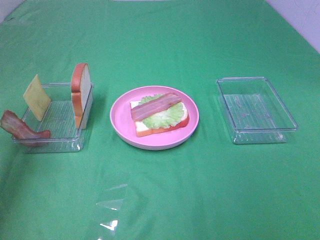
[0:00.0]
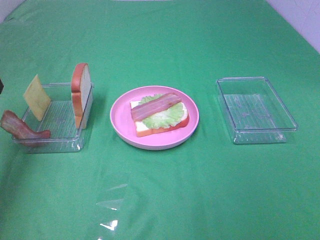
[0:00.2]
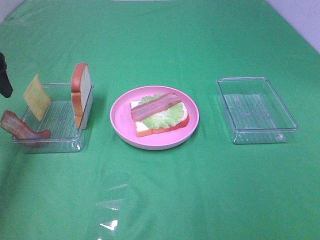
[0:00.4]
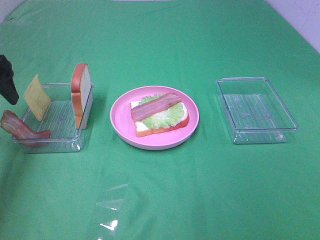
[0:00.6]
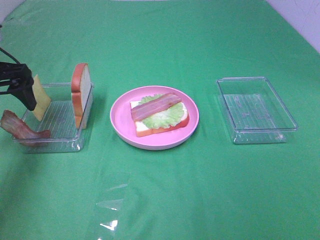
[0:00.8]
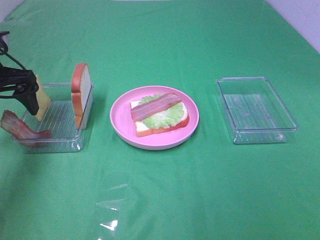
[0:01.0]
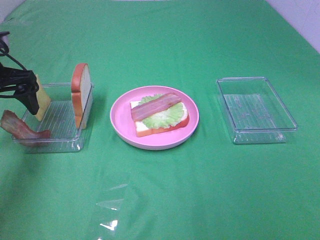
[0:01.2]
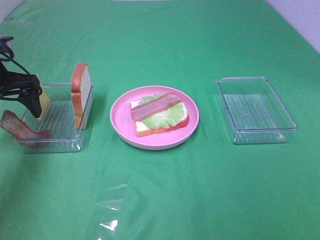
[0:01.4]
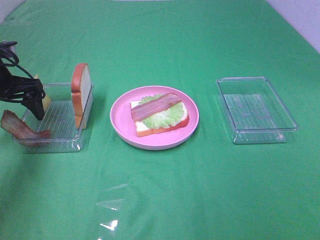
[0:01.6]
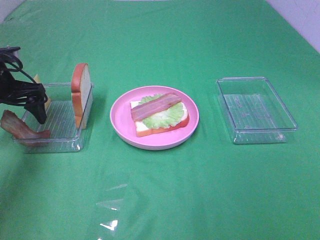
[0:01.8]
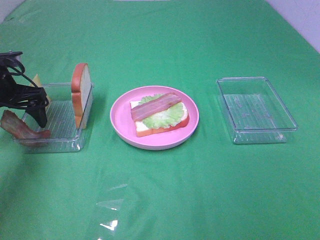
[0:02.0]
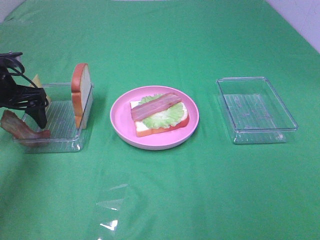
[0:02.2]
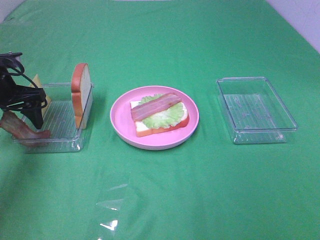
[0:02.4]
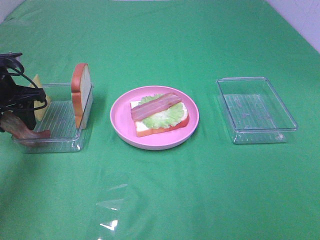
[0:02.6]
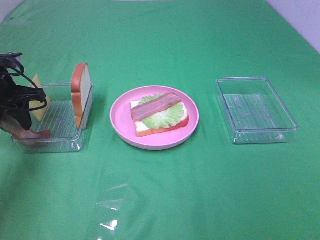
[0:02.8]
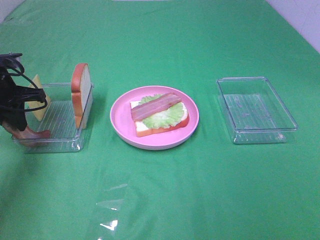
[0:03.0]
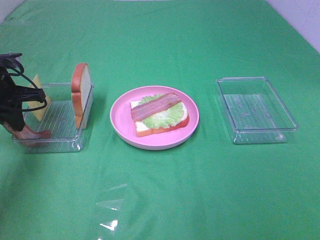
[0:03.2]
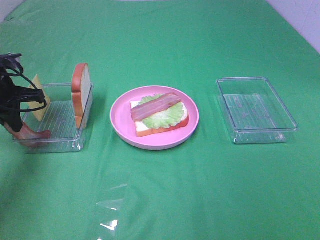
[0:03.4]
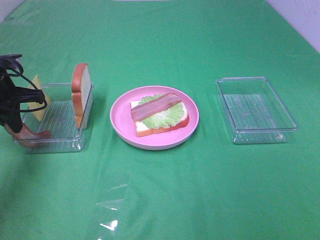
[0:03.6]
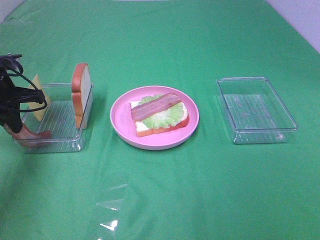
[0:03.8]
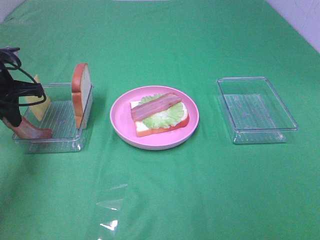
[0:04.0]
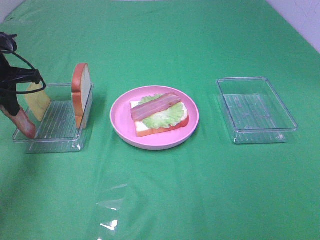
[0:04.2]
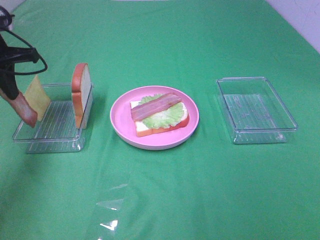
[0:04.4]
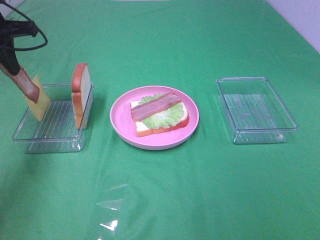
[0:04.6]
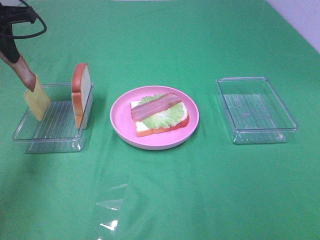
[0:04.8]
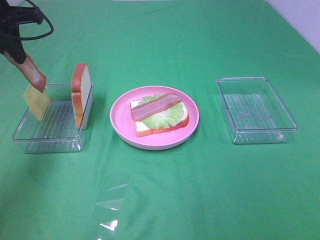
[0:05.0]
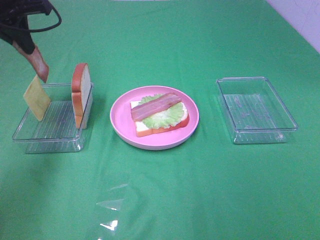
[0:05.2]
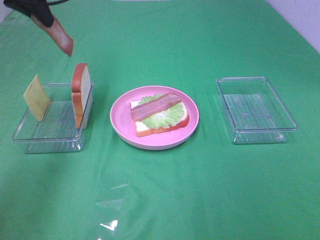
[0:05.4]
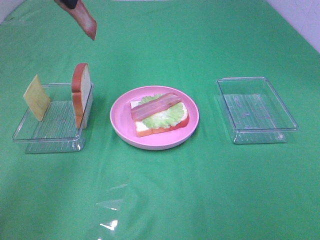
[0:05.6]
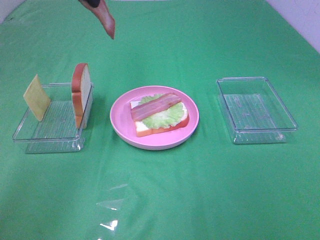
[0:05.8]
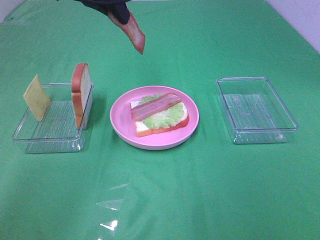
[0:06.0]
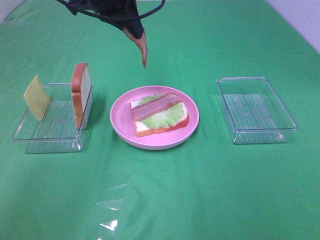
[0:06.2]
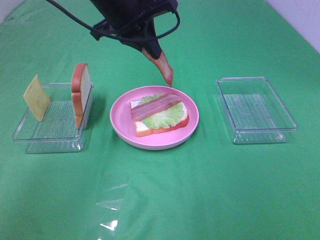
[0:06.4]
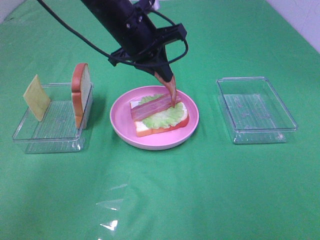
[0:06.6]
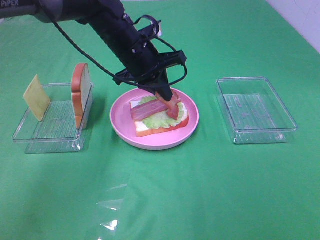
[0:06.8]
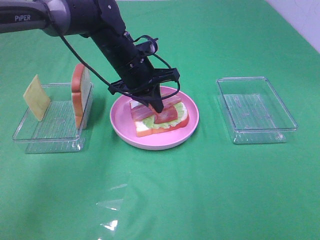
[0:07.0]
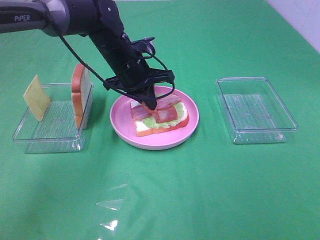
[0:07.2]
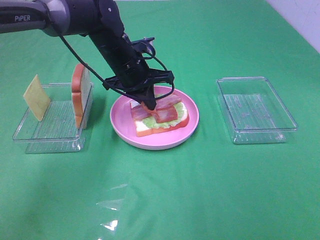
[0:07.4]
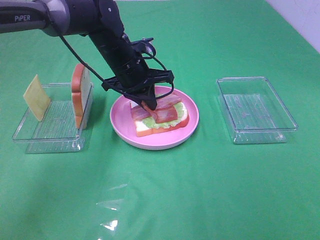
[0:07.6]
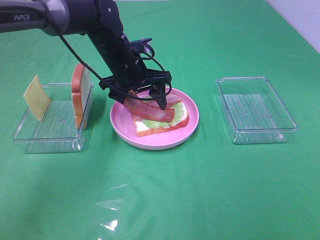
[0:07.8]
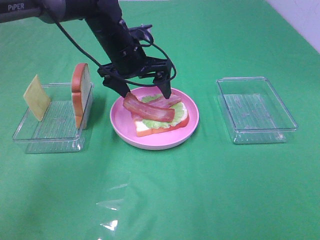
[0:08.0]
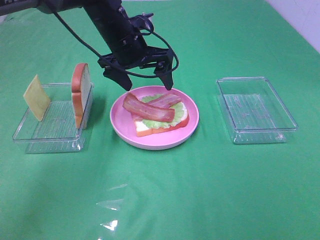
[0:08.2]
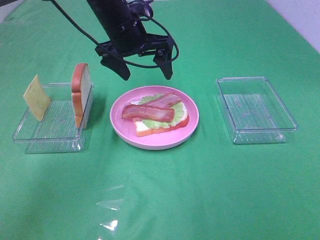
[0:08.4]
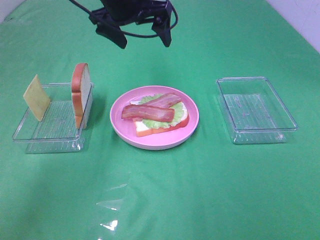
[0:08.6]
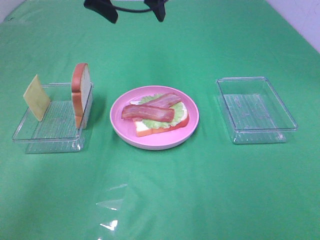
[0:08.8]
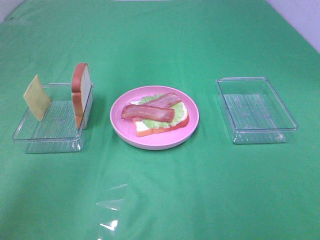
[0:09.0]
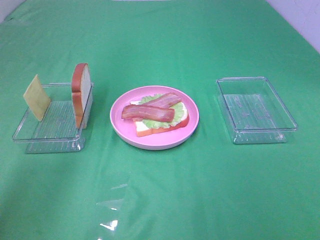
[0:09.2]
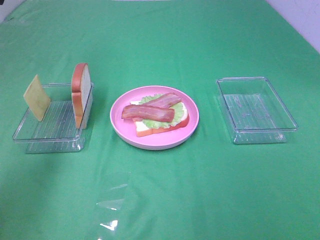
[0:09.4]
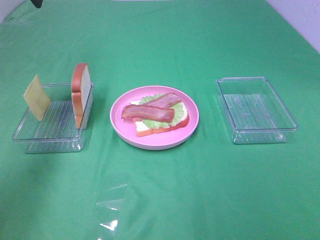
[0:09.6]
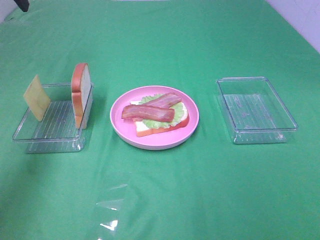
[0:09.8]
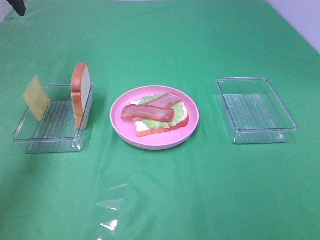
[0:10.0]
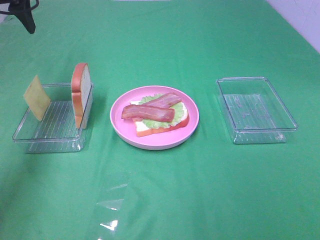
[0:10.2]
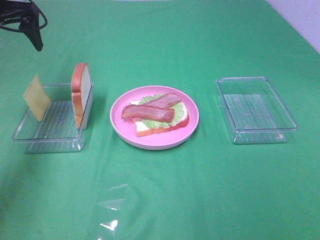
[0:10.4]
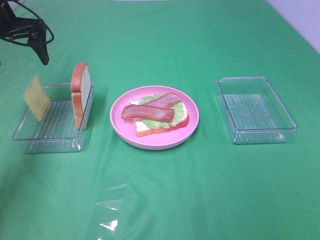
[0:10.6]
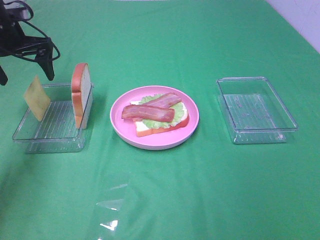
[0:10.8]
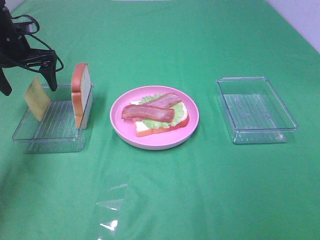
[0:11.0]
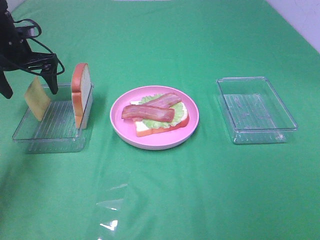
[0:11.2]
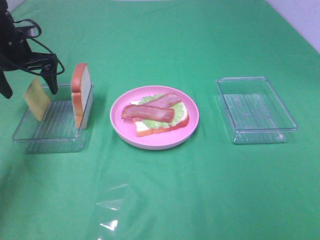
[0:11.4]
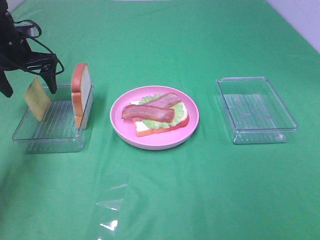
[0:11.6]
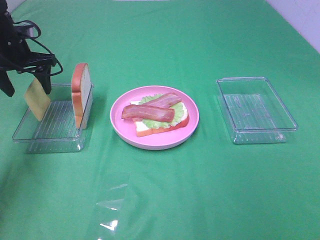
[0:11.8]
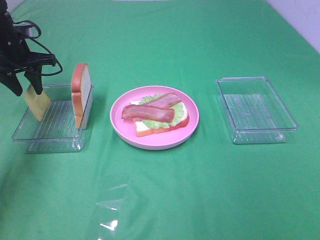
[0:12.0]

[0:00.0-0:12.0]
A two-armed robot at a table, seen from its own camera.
Task of the whole recording: Make sandwiches.
Step, 0.0 to 3.4 s: Left hand:grab the bacon.
Step, 3.6 to 8.2 s: Left hand:place bacon on bacon.
0.0 to 1.6 s: The left gripper goes some 15 cm downward and forward.
1.6 to 3.0 s: The left gripper closes its fingers.
3.0 to 4.4 s: The left gripper is displaced upward by approximately 10 cm.
4.4 to 6.0 s: The left gripper goes about 20 cm to the right and upward.
6.0 to 7.6 s: The left gripper travels downward by roughly 20 cm.
7.6 to 9.0 s: The left gripper moves upward, roughly 20 cm, and opens.
9.0 to 10.4 s: The left gripper shifts approximately 20 cm to the left and downward.
10.4 to 12.0 s: The left gripper goes approximately 10 cm downward, and closes.

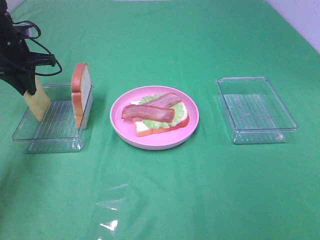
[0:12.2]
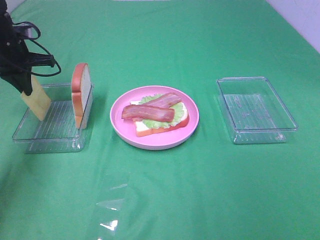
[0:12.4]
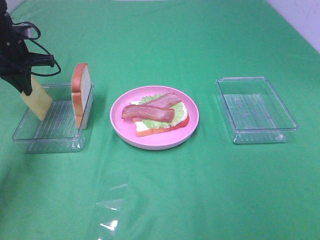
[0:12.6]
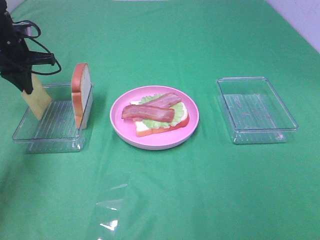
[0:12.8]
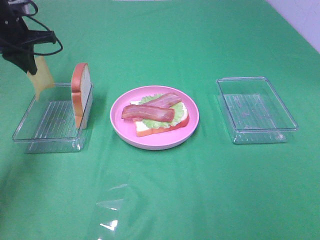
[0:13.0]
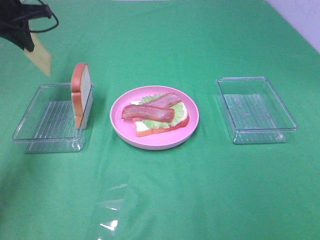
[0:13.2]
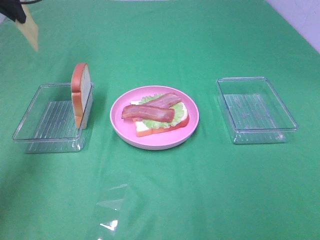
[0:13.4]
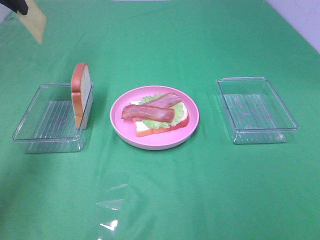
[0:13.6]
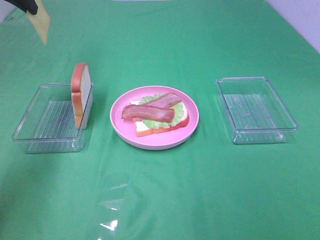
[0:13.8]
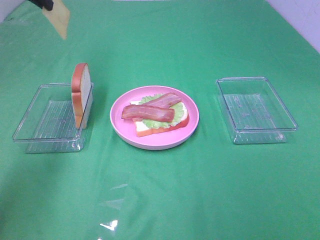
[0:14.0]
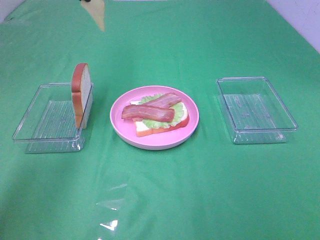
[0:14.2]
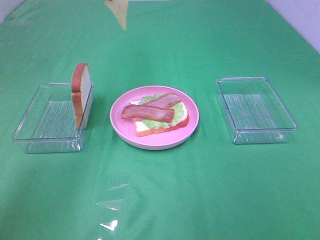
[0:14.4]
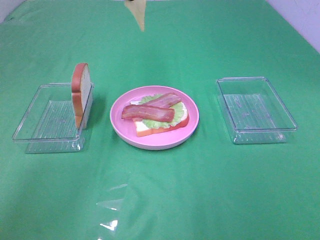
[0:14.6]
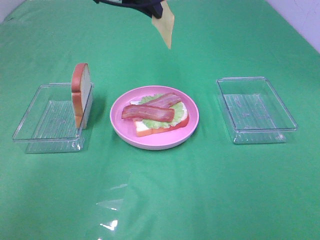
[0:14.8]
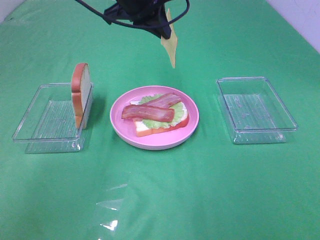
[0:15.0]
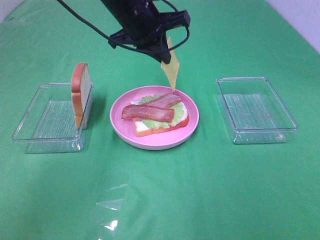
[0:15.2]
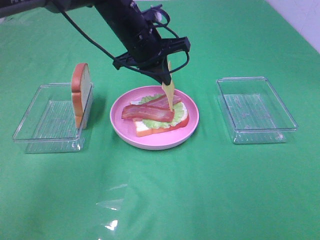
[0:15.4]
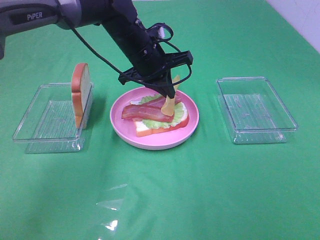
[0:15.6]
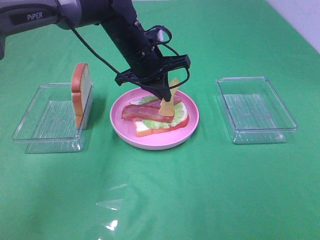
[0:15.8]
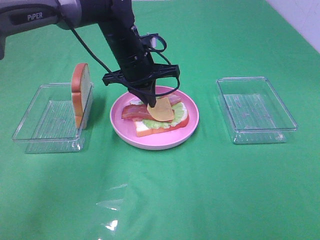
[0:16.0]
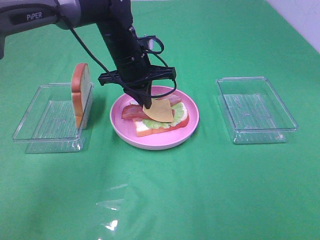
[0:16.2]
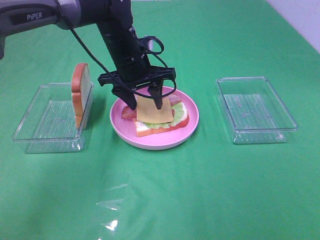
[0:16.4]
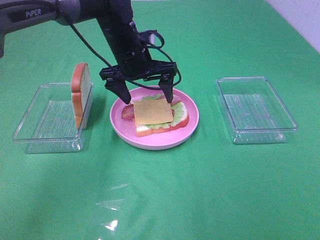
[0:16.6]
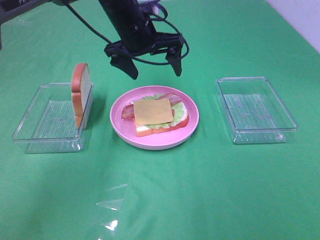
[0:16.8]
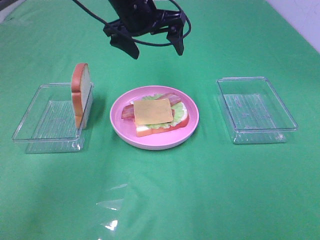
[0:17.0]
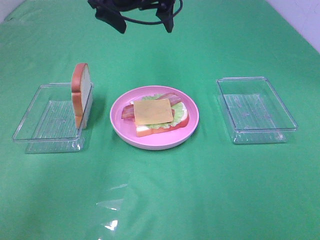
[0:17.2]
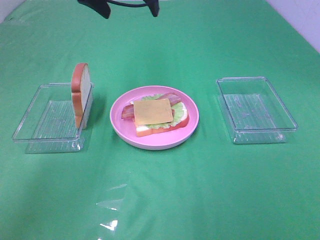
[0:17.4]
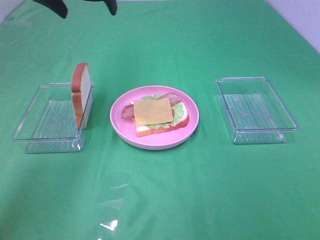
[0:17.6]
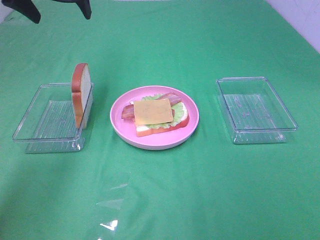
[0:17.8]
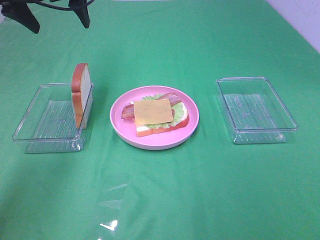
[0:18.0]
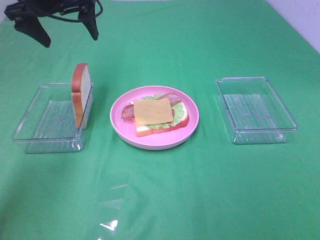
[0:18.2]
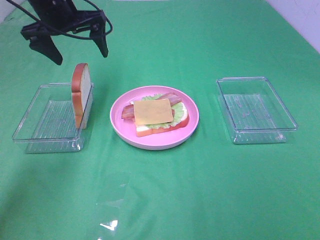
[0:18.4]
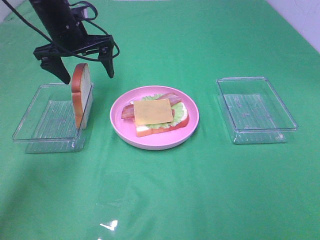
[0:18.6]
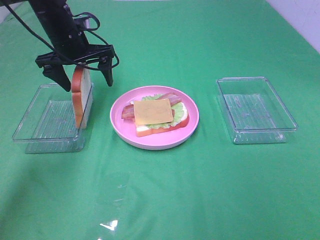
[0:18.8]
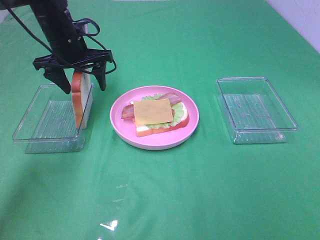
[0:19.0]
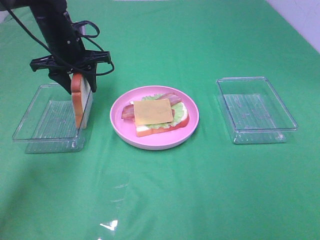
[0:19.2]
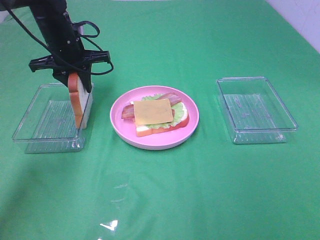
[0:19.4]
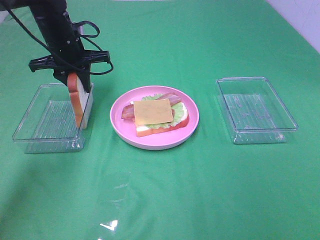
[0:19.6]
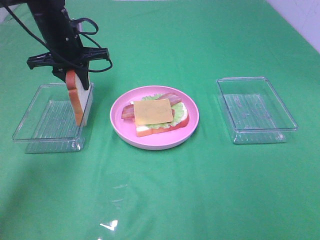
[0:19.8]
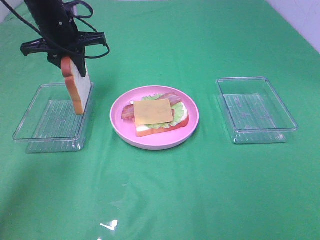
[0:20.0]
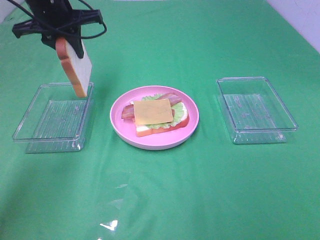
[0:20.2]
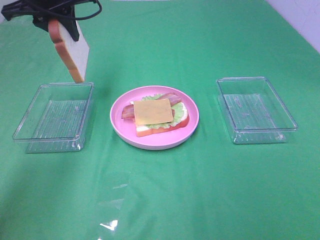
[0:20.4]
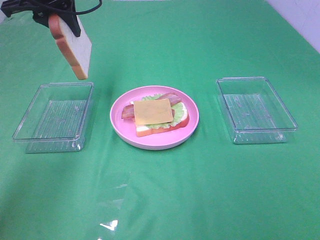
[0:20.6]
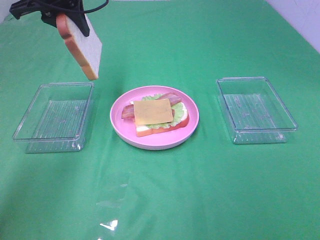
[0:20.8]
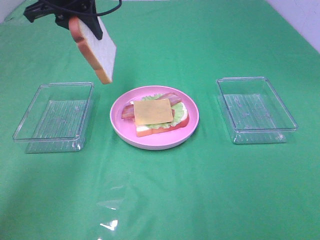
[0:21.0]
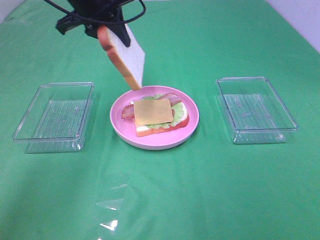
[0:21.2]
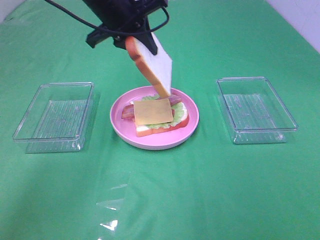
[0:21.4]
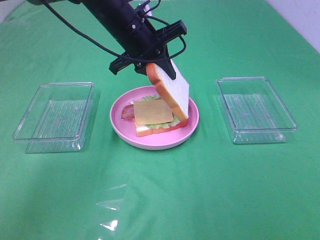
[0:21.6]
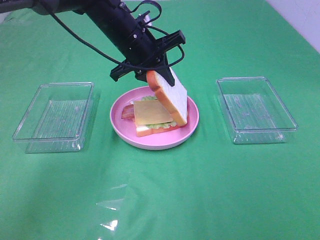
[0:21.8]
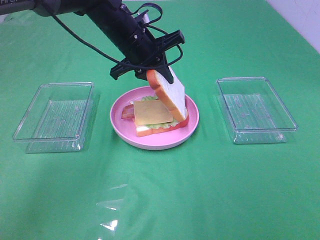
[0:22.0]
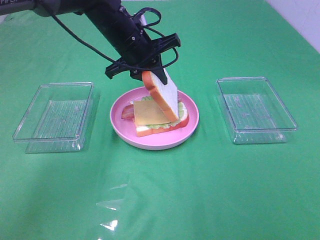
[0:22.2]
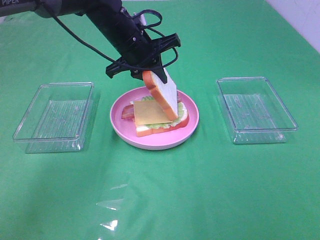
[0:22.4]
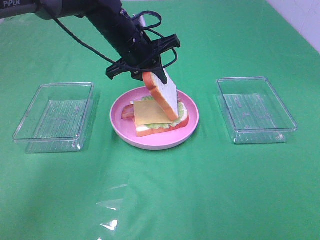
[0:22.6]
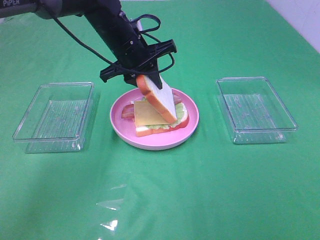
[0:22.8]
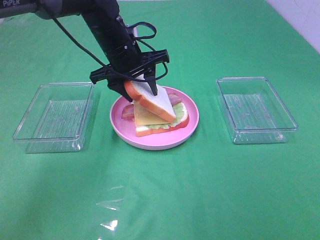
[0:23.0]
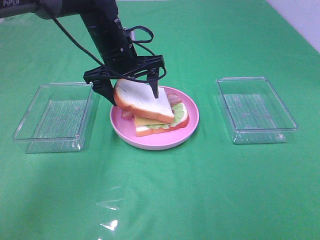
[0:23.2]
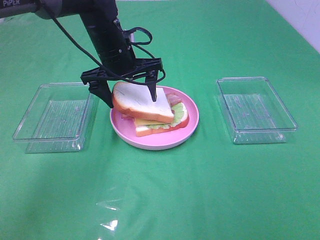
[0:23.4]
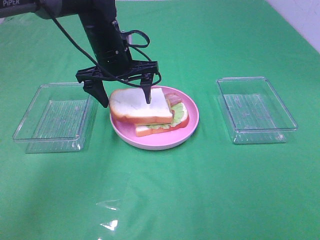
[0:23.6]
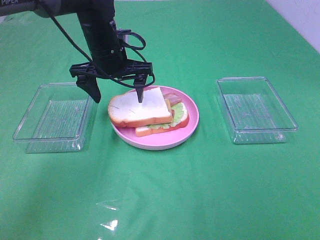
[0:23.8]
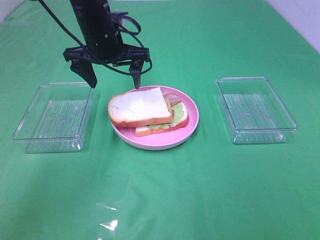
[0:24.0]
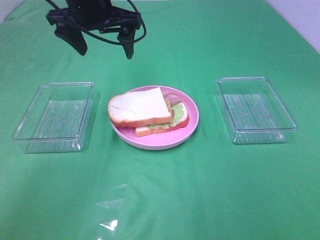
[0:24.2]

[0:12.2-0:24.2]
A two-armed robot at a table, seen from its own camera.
Task of the whole recording: Make sandwiches.
Step, 12.4 to 16.4 s: Left hand:place the cheese slice on top of the bacon.
Step, 16.6 to 19.6 s: Left hand:grab the bread slice.
Step, 19.8 to 23.8 s: Left hand:place the bread slice on the cheese slice.
12.2 to 13.8 s: The left gripper shifts approximately 15 cm upward.
13.8 to 15.2 s: The left gripper heads to the right and downward, covering some 25 cm.
15.2 to 16.6 s: The left gripper travels downward by some 5 cm, and opens up.
16.6 to 18.2 s: The left gripper is displaced to the left and upward by some 20 cm.
18.2 to 19.8 s: The left gripper heads downward, covering roughly 10 cm, and closes its fingers.
19.8 to 21.2 s: The left gripper goes roughly 10 cm upward and to the right.
21.2 to 22.6 s: The left gripper moves downward and to the right, some 10 cm.
22.6 to 24.2 s: The left gripper moves upward and to the left, approximately 10 cm, and opens.
